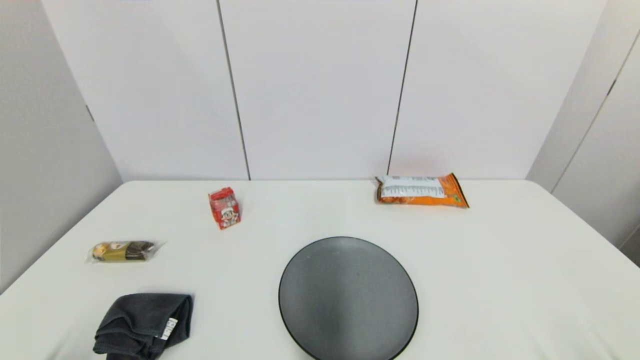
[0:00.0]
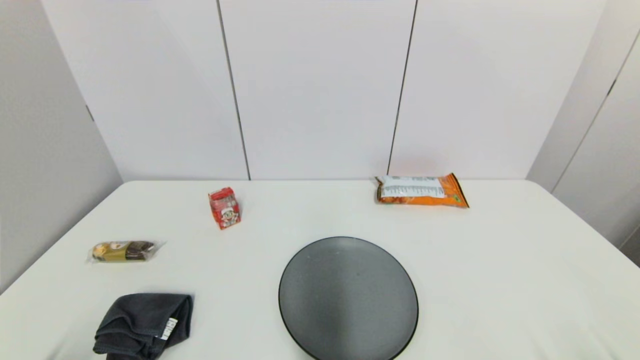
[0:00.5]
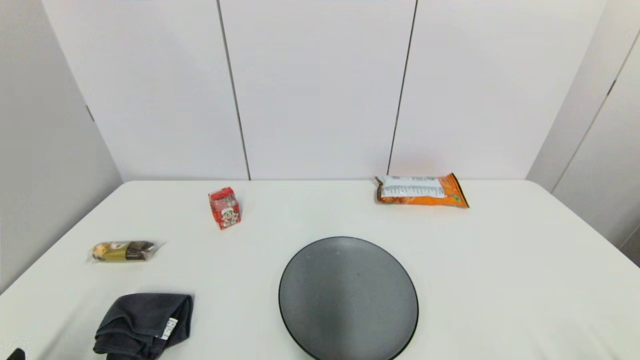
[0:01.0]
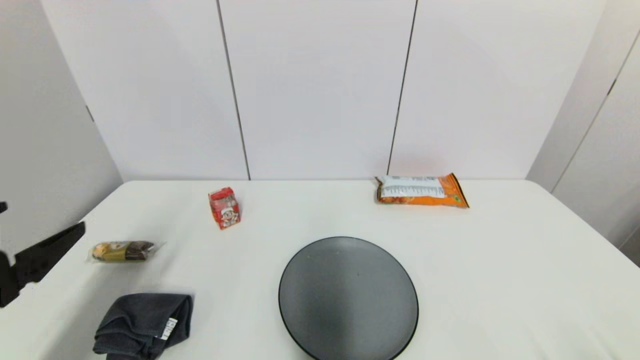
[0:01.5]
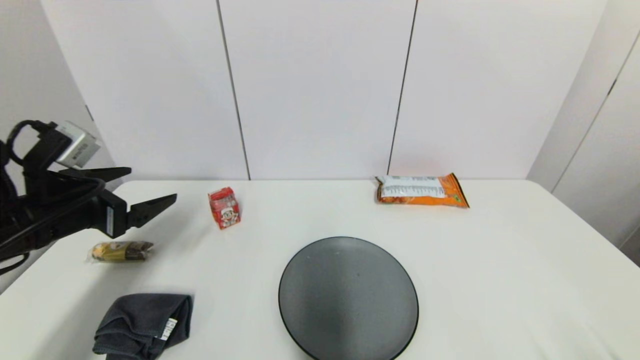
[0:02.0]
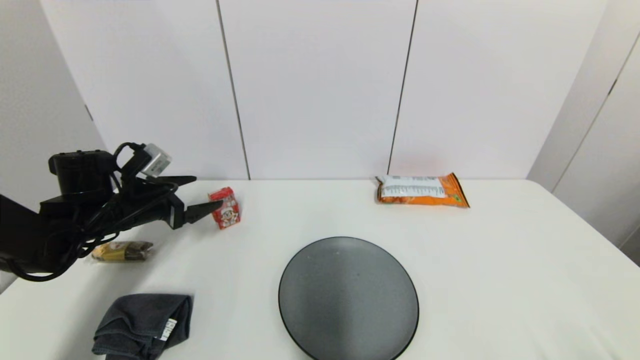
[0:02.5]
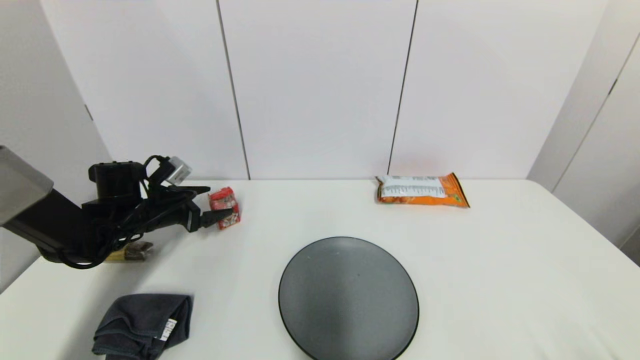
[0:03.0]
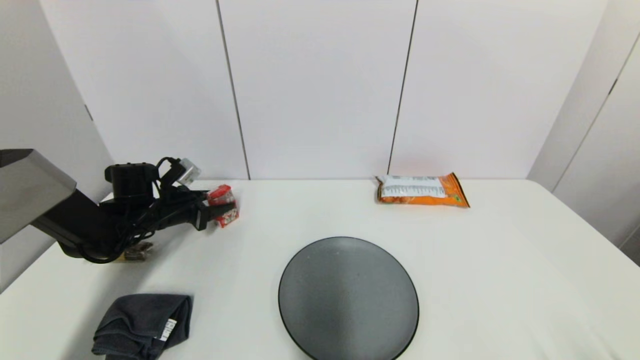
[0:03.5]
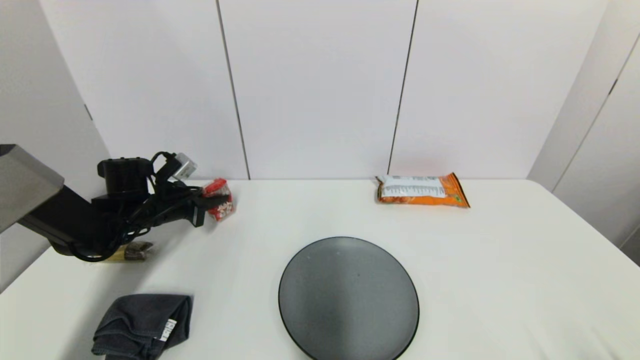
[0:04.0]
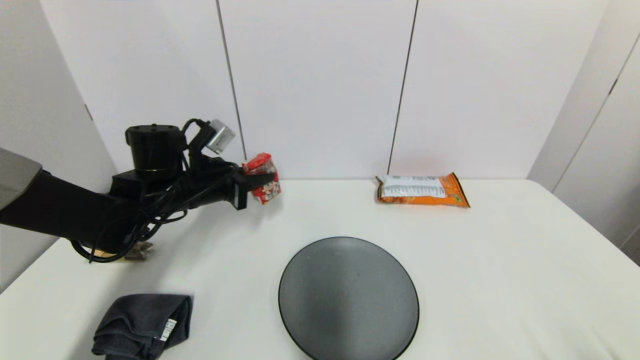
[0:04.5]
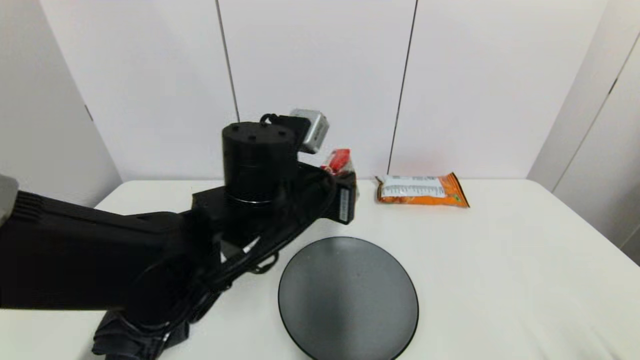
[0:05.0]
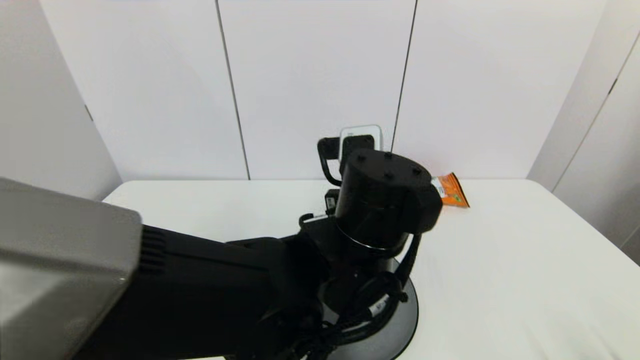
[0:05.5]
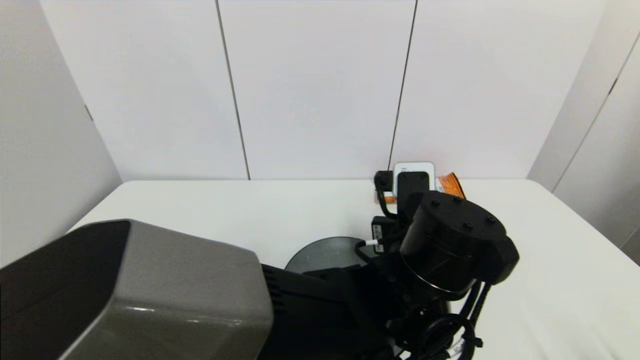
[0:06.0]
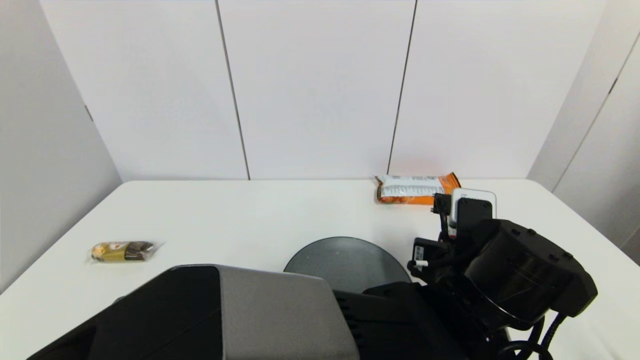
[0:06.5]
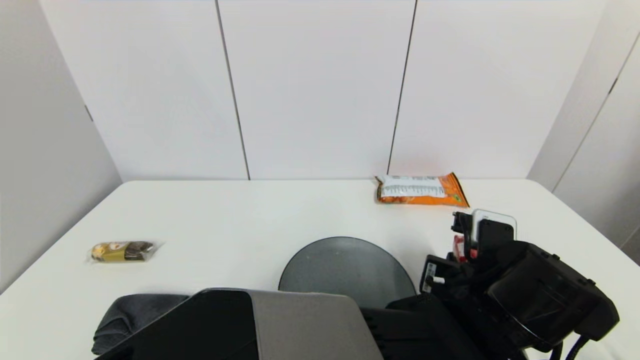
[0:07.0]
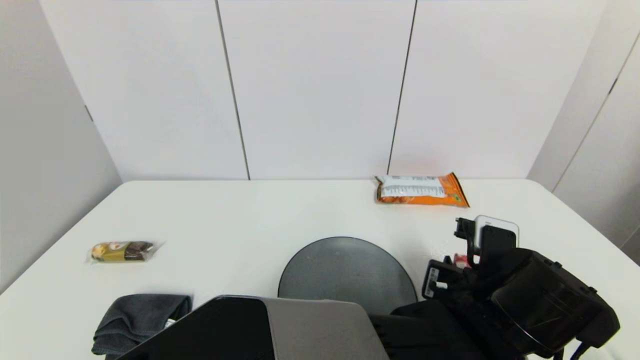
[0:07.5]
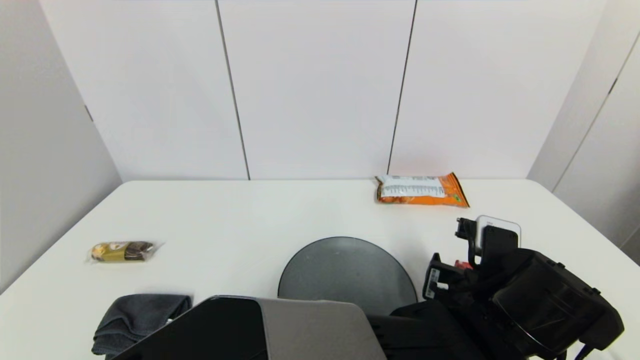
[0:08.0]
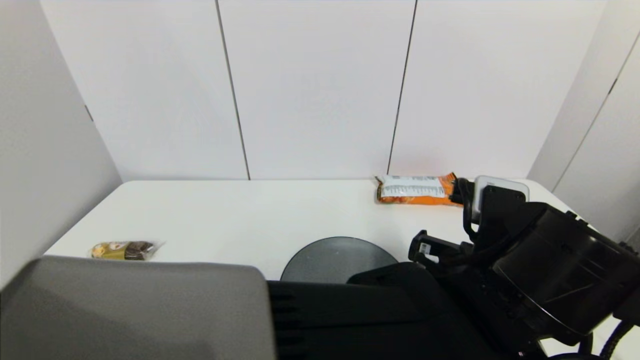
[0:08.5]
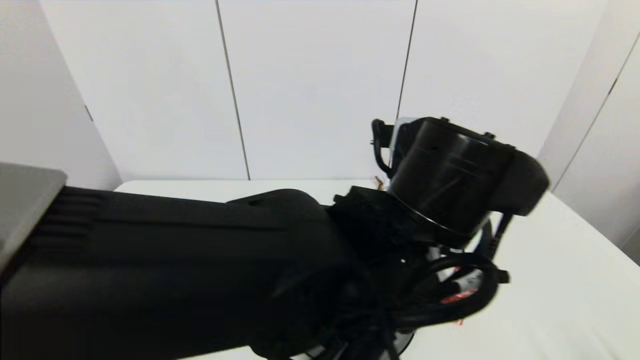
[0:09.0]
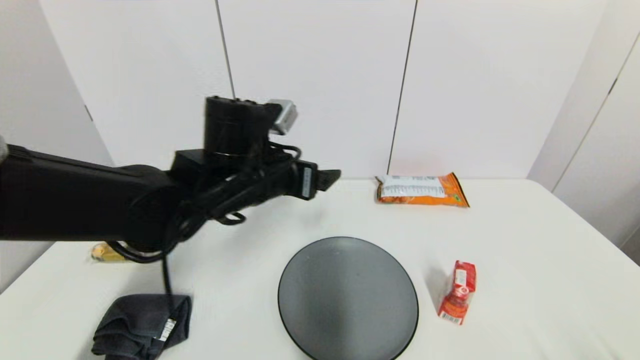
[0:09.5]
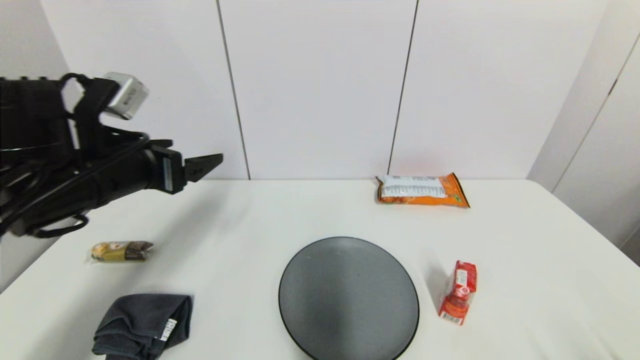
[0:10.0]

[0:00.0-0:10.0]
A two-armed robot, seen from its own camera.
Step, 0:01.0 to 0:03.5: Grasp the wangzai milk with left gripper.
Step, 0:04.0 to 0:07.5: Place the wangzai milk on the table with left gripper.
0:00.0 to 0:02.0: The left gripper heads forward and upward, covering roughly 30 cm.
0:02.0 to 0:04.0: The left gripper heads forward and downward, covering about 20 cm, and closes its fingers.
0:04.0 to 0:06.0: The left gripper moves to the right and backward, approximately 40 cm.
0:06.0 to 0:08.0: The left gripper is displaced to the right by some 5 cm, and opens up.
0:08.0 to 0:10.0: The left gripper moves to the left, approximately 40 cm.

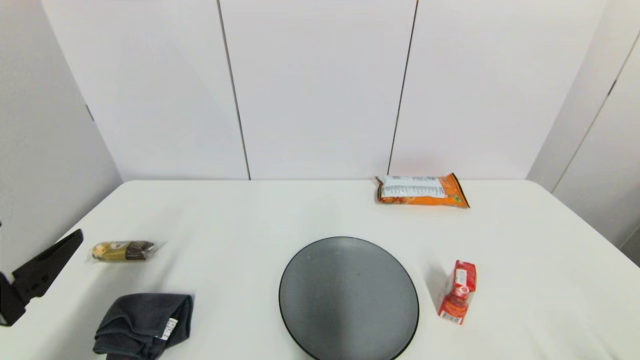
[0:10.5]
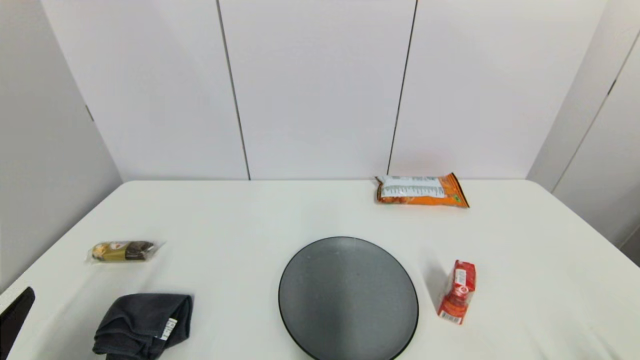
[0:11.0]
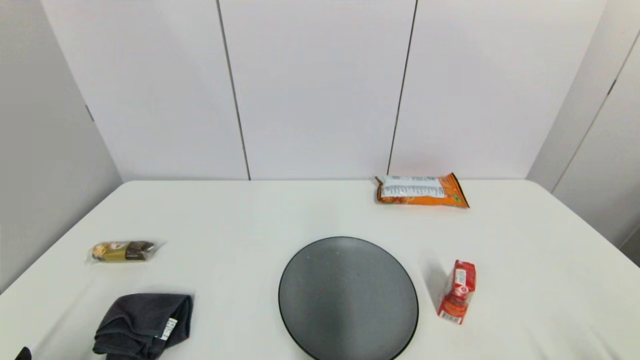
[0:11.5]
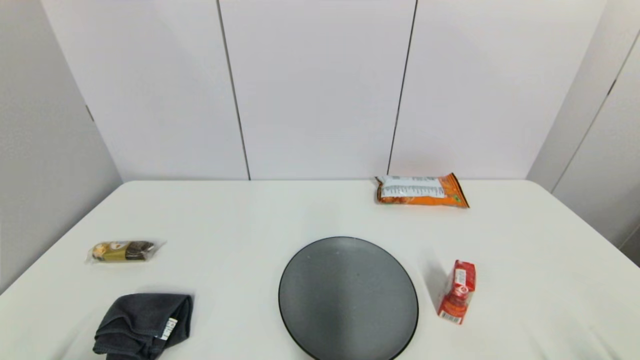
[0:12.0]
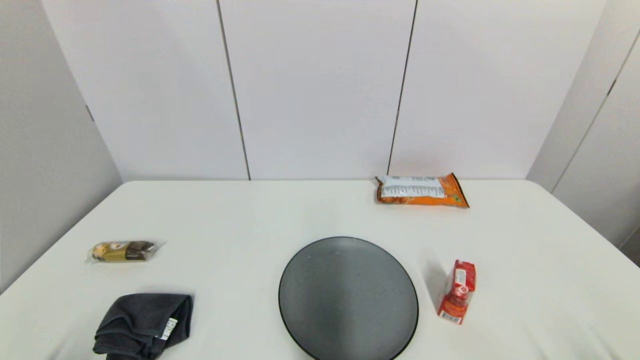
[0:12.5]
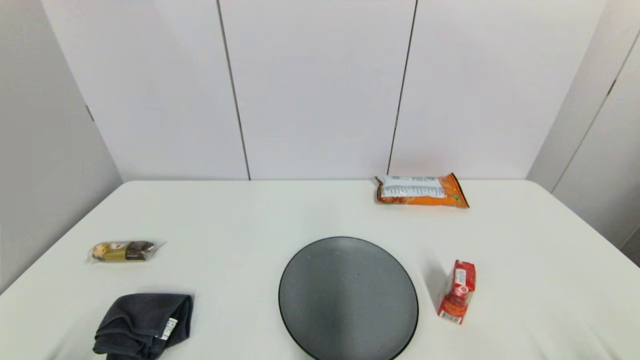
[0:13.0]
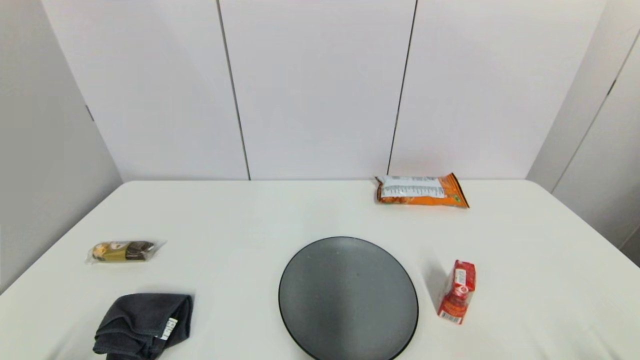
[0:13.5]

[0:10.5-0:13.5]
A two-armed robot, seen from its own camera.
0:10.5 to 0:12.0: The left gripper goes some 15 cm downward and backward.

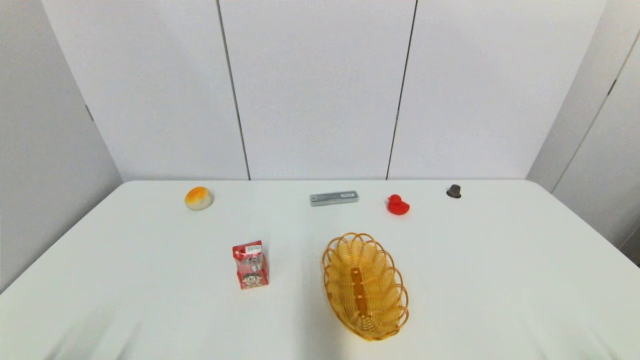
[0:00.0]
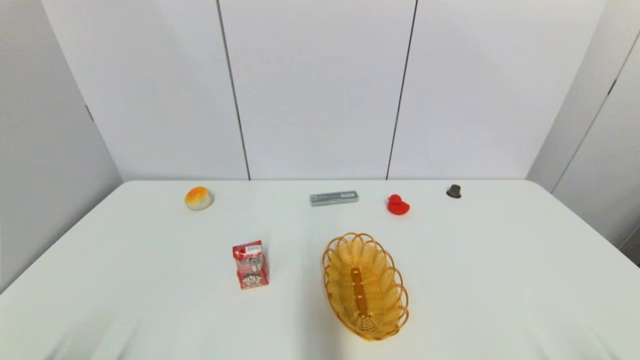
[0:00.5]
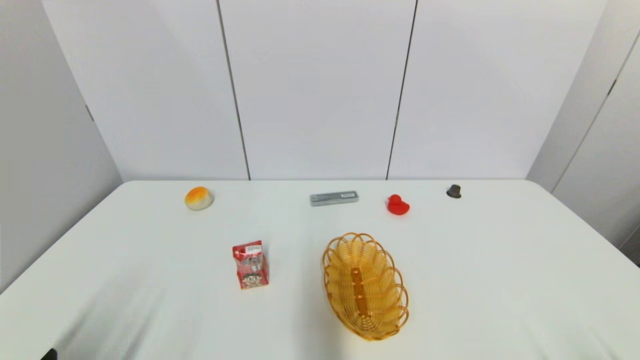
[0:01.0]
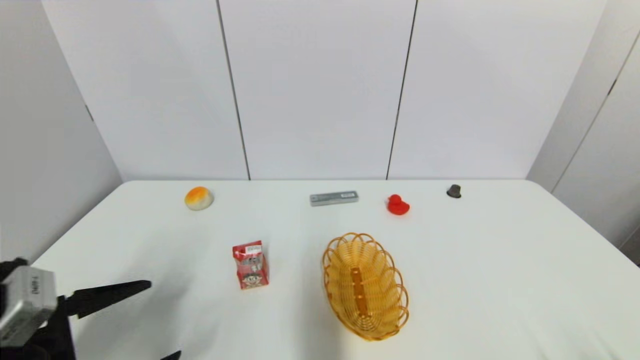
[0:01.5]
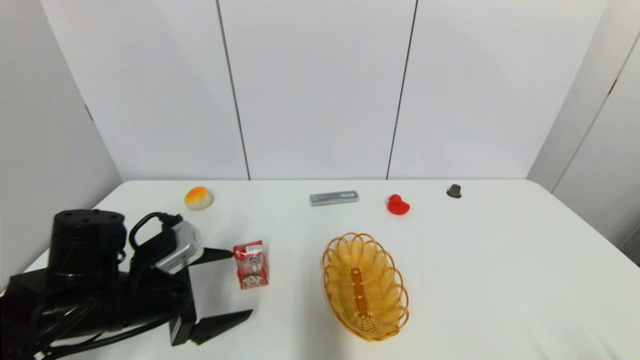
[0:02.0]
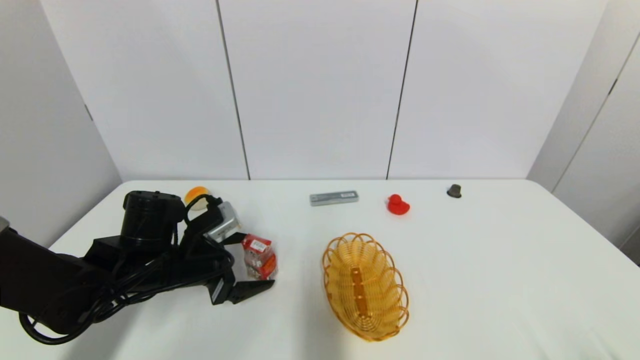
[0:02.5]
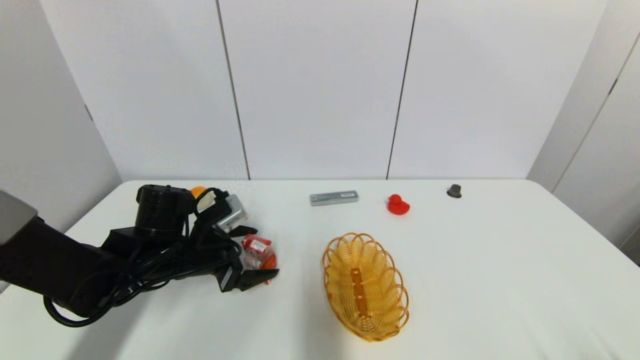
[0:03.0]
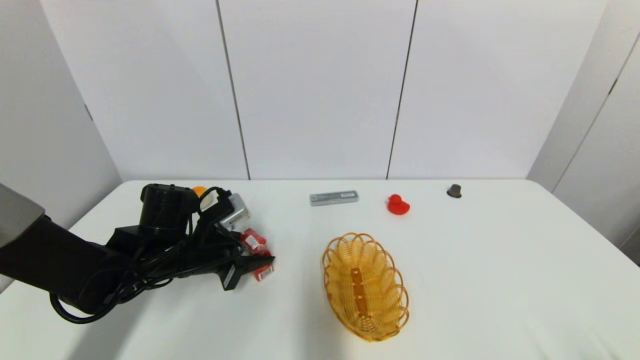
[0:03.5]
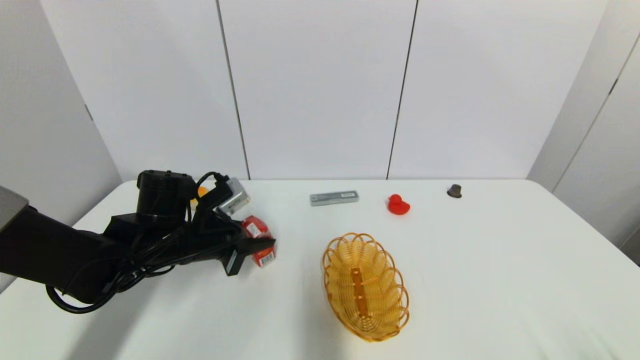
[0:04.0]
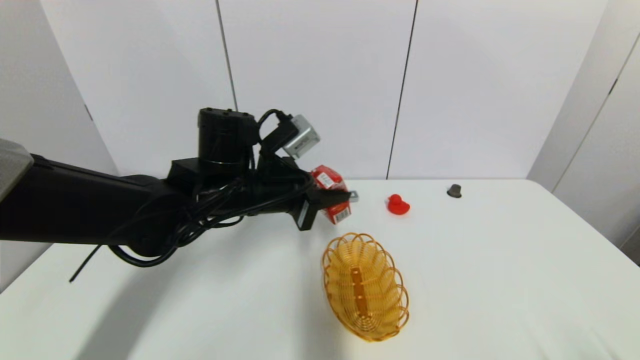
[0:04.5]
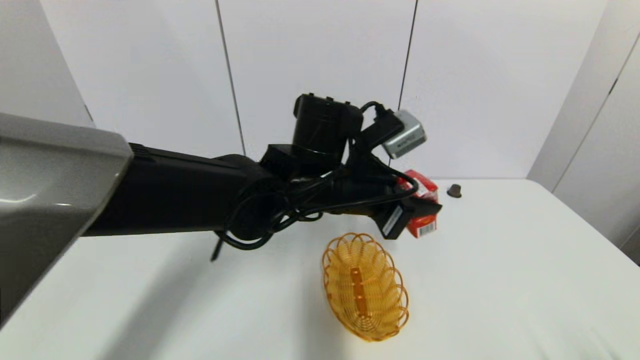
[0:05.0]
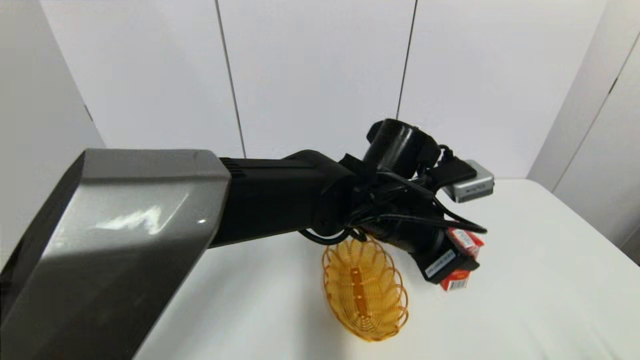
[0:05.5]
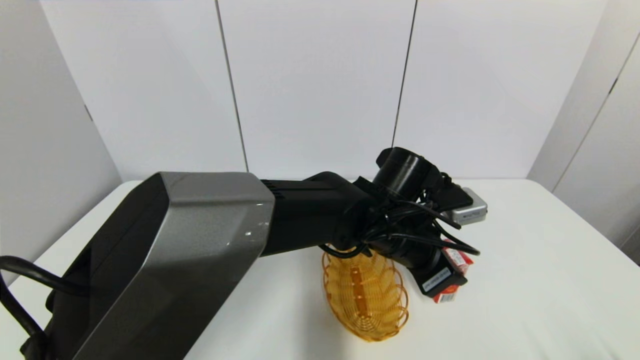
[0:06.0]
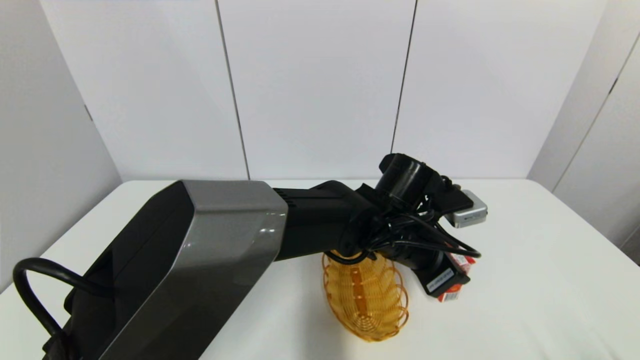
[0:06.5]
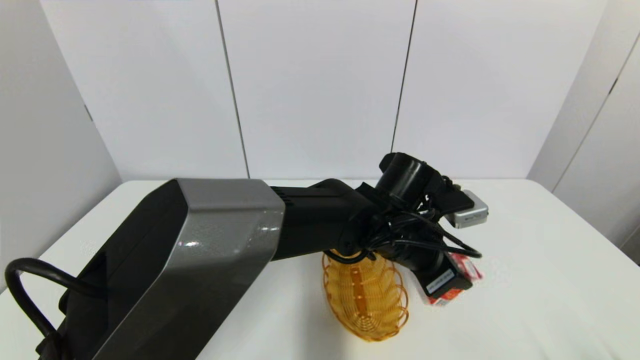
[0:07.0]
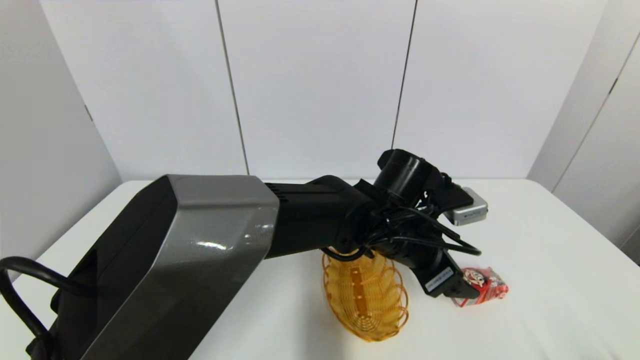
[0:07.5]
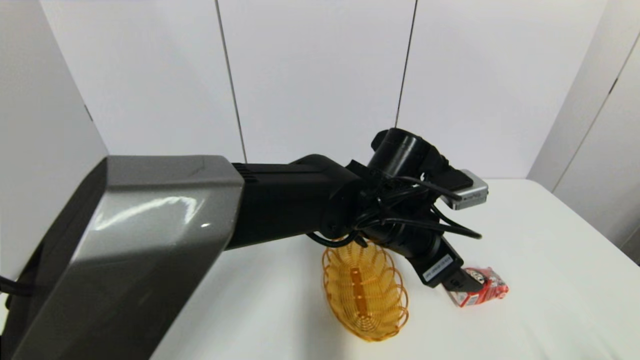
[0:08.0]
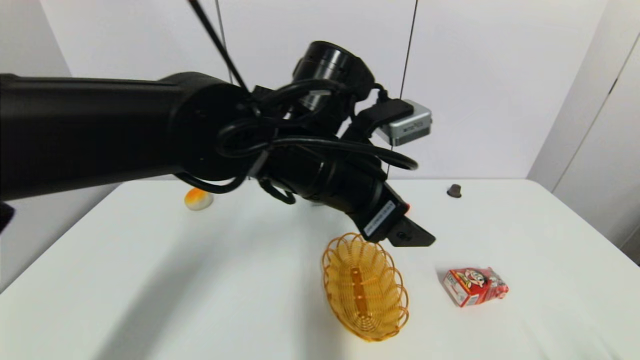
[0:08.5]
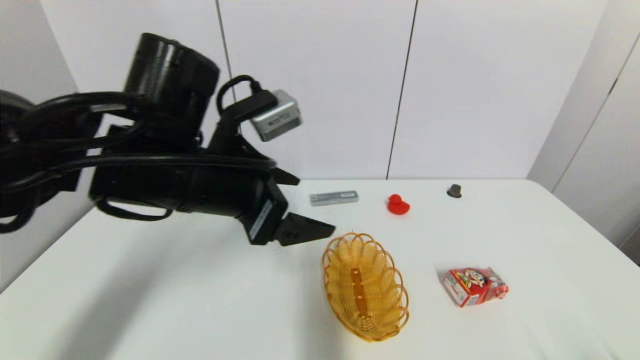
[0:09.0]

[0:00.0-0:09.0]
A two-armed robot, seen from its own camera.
Step, 0:01.0 to 0:03.5: Grasp the wangzai milk with left gripper.
Step, 0:04.0 to 0:07.0: Place the wangzai milk on the table with left gripper.
0:00.0 to 0:02.0: The left gripper shifts about 20 cm forward.
0:02.0 to 0:04.5: The left gripper moves to the right, forward and upward, some 20 cm, and closes its fingers.
0:04.5 to 0:07.0: The left gripper is displaced to the right by approximately 15 cm.
0:07.0 to 0:09.0: The left gripper heads to the left and upward, covering some 25 cm, and opens.
